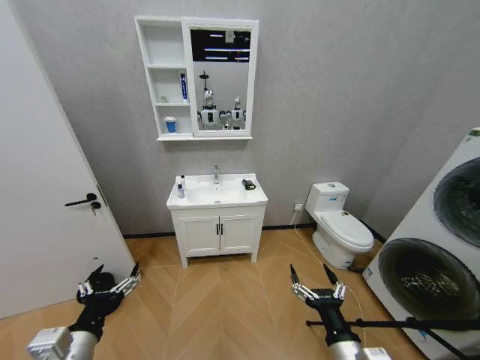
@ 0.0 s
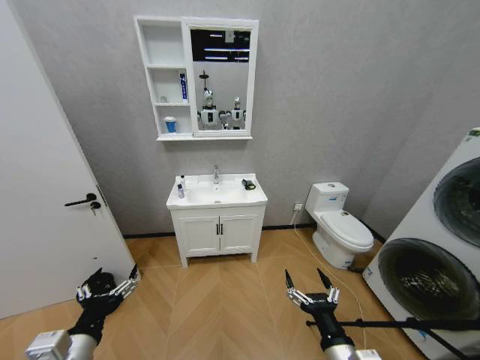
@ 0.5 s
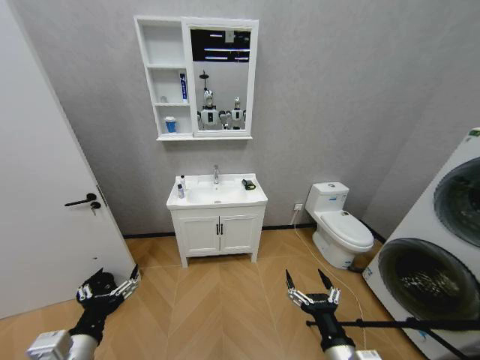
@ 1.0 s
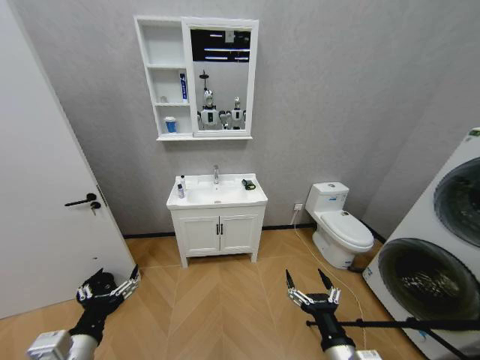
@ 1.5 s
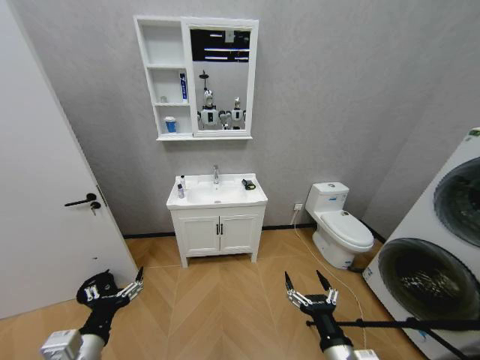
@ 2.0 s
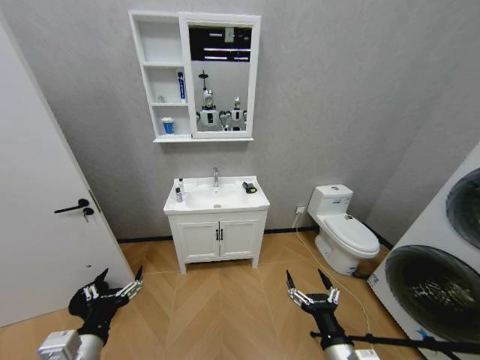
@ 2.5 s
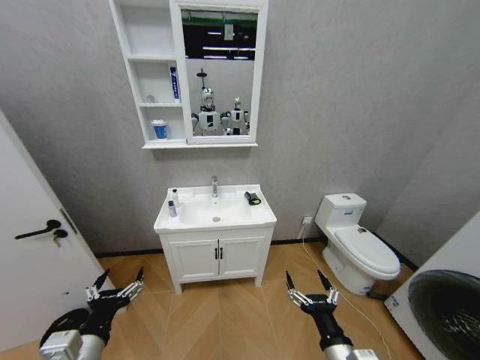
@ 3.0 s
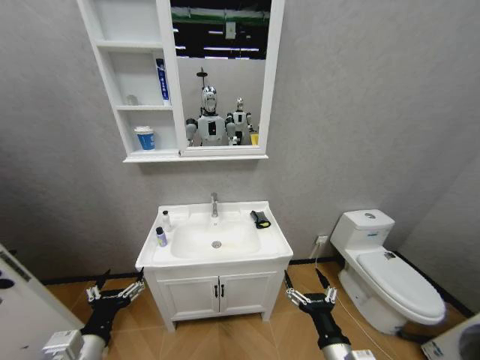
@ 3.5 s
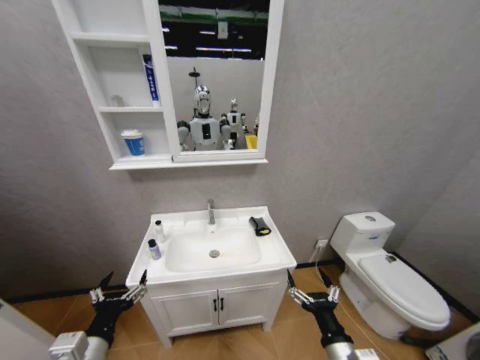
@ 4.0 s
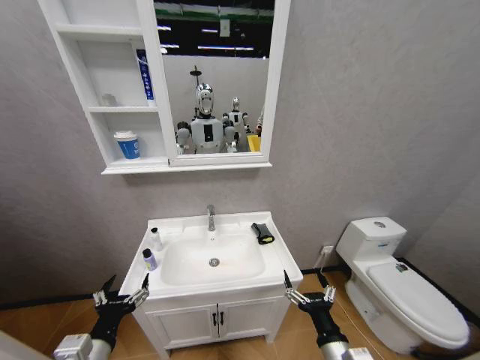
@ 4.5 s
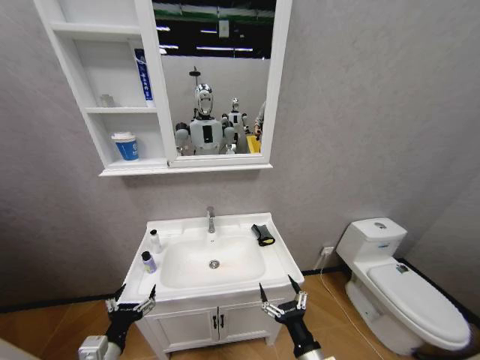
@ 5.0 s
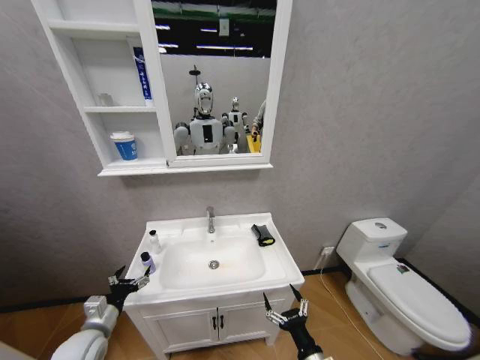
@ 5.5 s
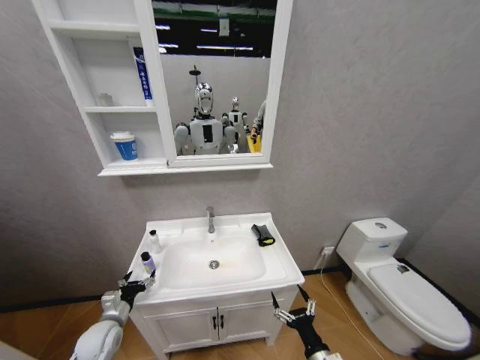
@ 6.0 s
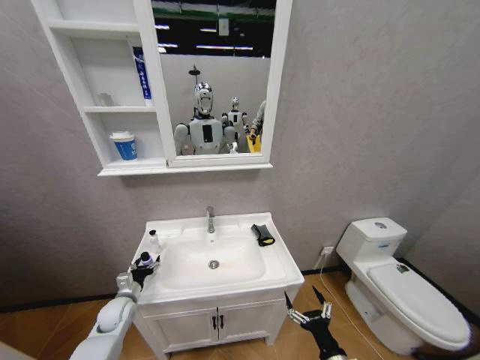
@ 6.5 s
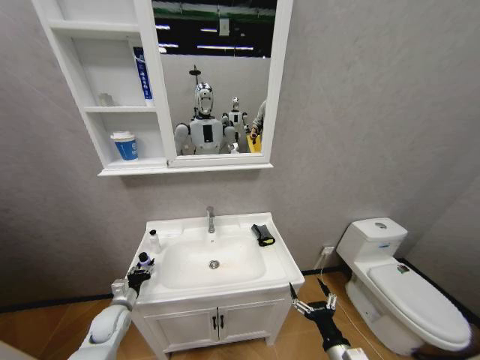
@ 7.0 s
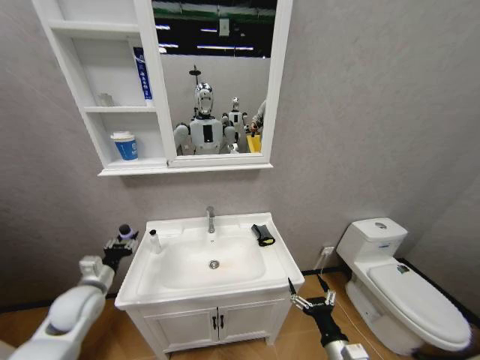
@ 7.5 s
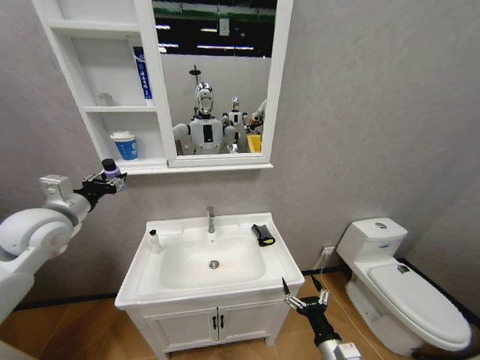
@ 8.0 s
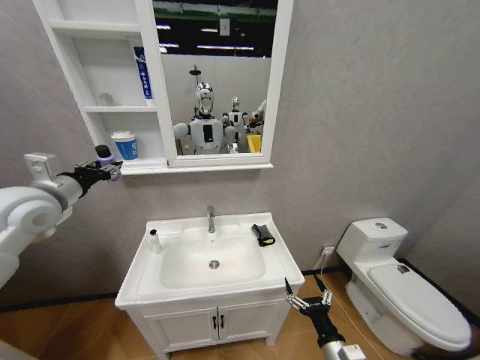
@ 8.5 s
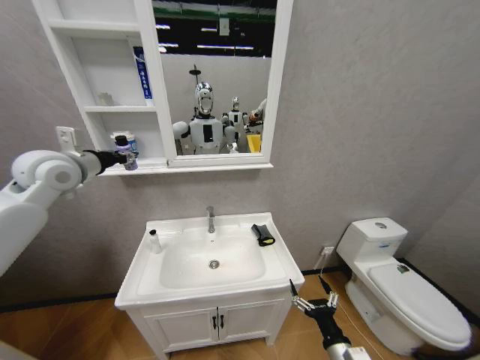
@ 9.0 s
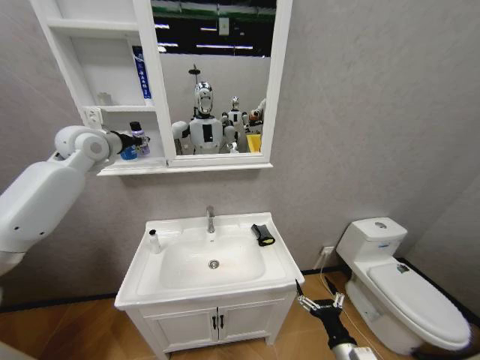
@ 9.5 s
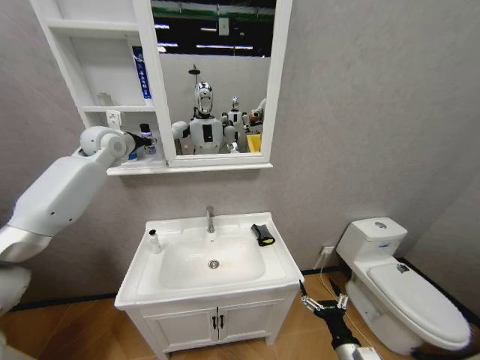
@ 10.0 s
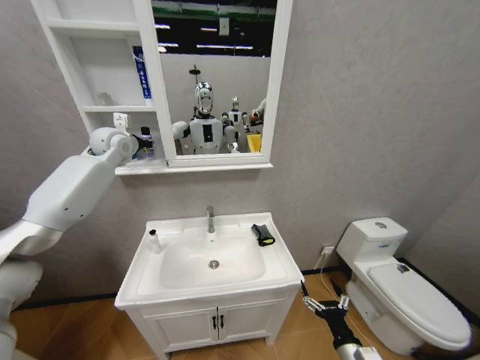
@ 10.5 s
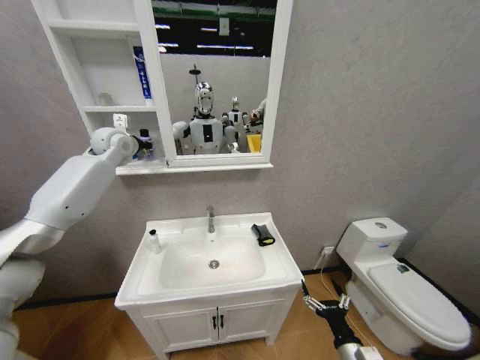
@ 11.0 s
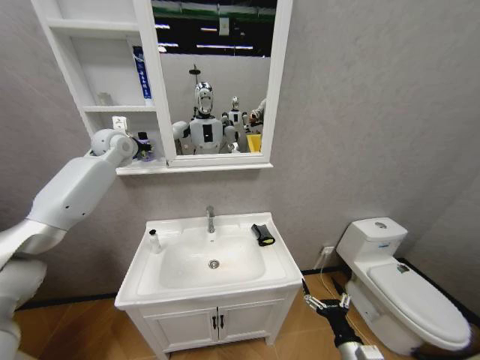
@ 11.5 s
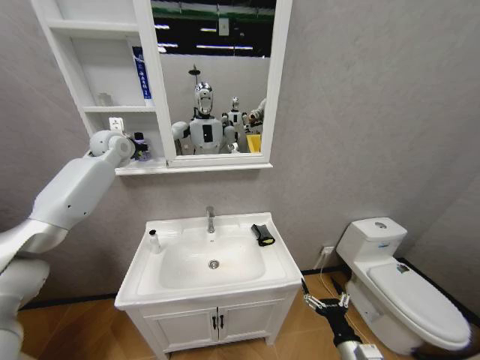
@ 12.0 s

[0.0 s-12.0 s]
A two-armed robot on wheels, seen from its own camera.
Task of the whole recording: Move facial cleanser and shampoo from washbasin to cabinet, then wipe washbasin with towel.
4.0 to 6.0 s: The left gripper shifts roughly 25 cm downward, forward and to the left. Meanwhile the right gripper is displaced downward by about 10 cm.
6.0 to 8.0 s: The left gripper travels upward by roughly 35 cm, and closes.
8.0 to 10.0 s: The left gripper travels forward and upward by about 25 cm.
10.0 to 12.0 s: The grippers move only a little.

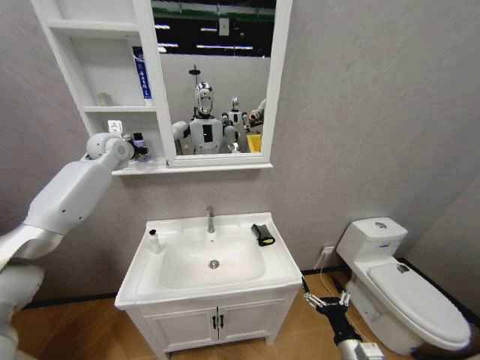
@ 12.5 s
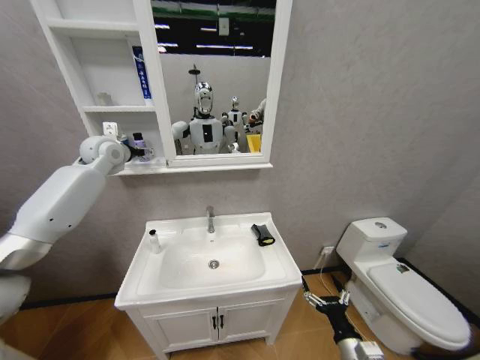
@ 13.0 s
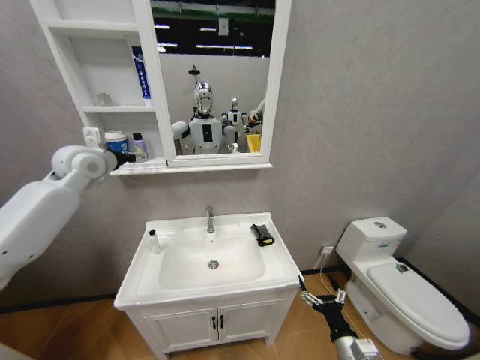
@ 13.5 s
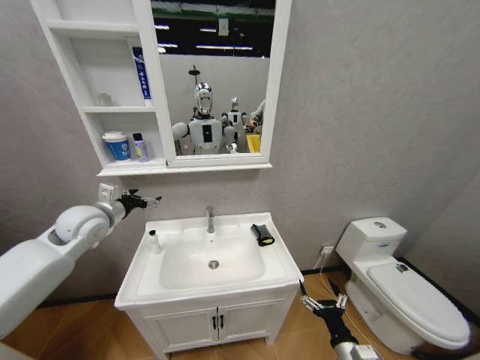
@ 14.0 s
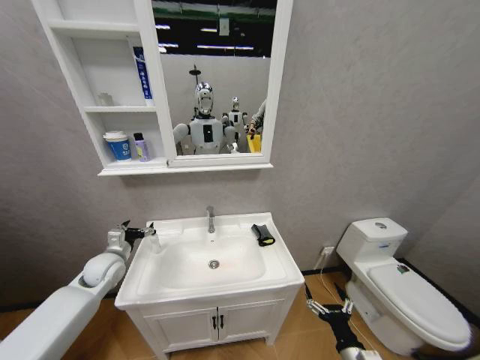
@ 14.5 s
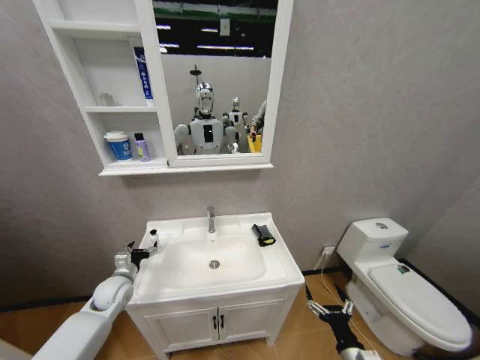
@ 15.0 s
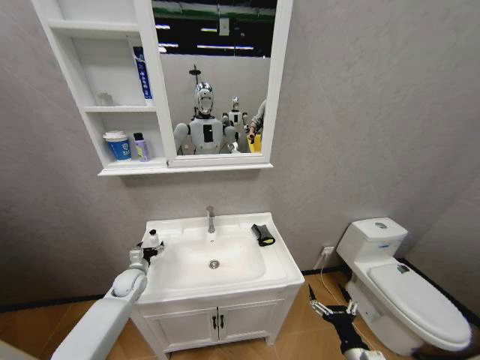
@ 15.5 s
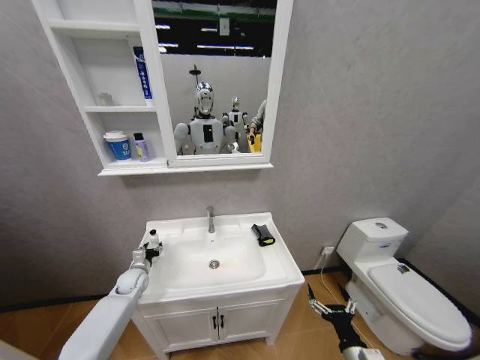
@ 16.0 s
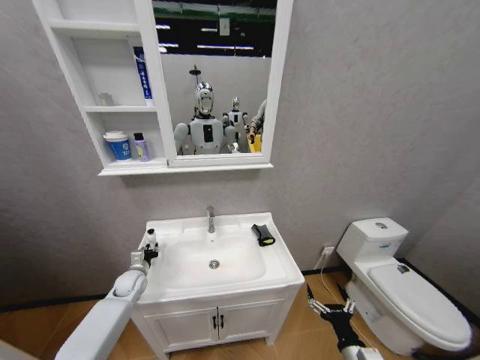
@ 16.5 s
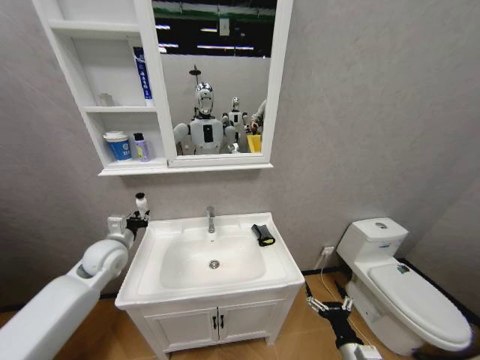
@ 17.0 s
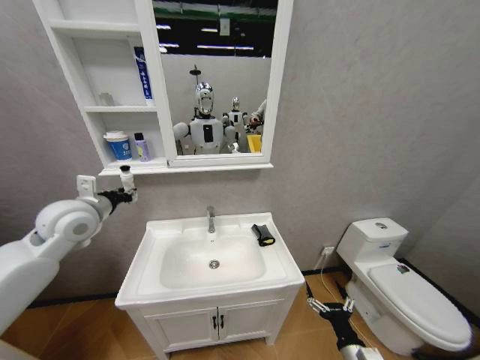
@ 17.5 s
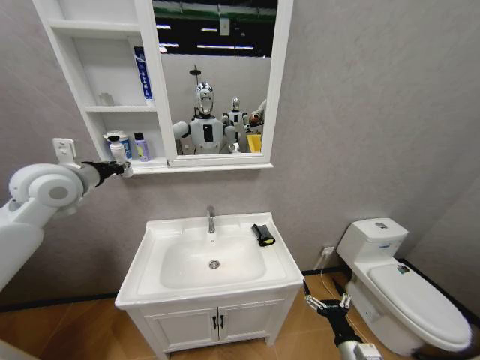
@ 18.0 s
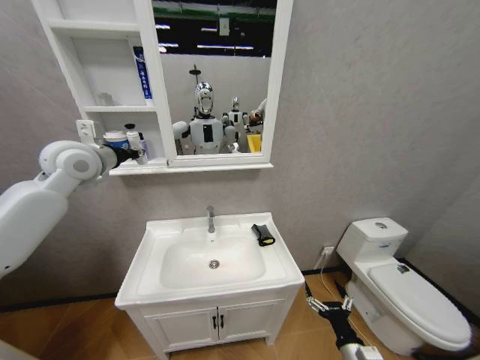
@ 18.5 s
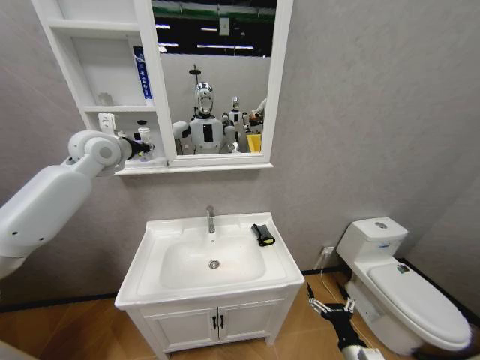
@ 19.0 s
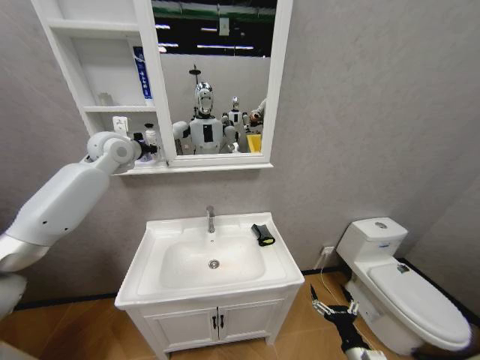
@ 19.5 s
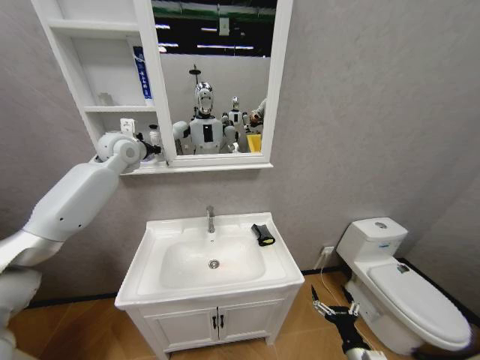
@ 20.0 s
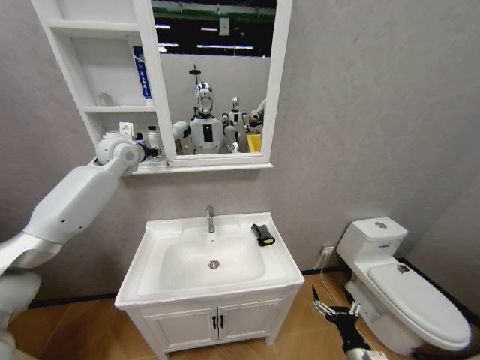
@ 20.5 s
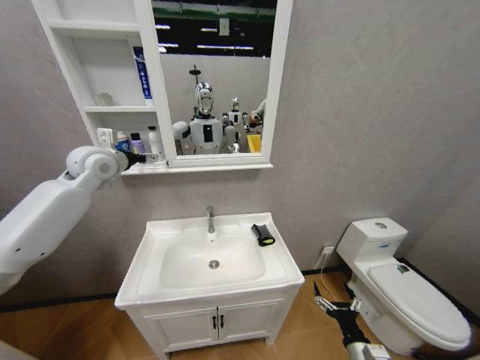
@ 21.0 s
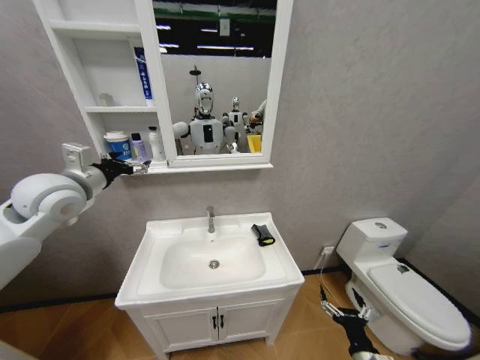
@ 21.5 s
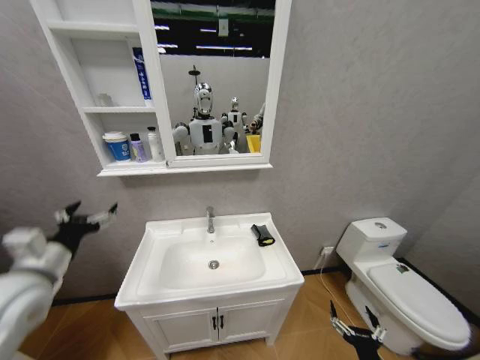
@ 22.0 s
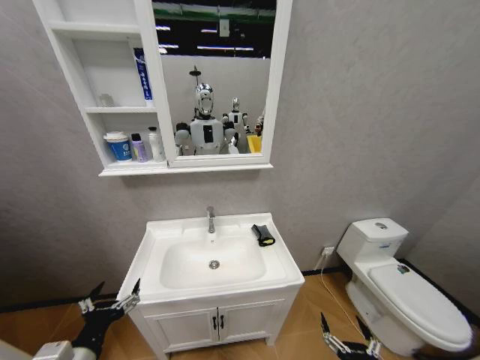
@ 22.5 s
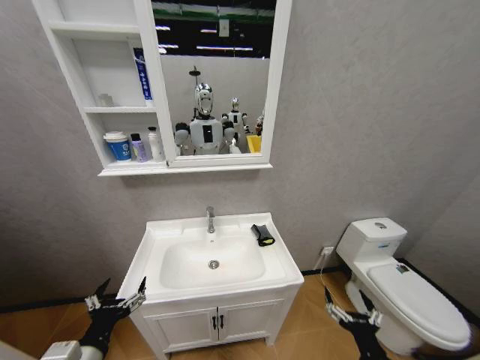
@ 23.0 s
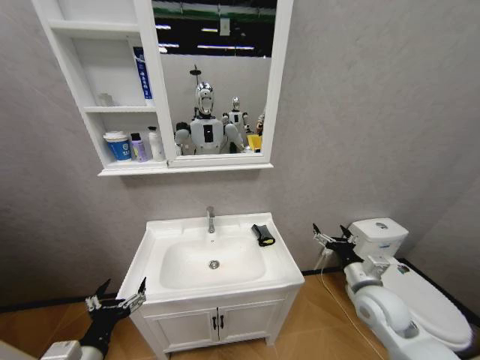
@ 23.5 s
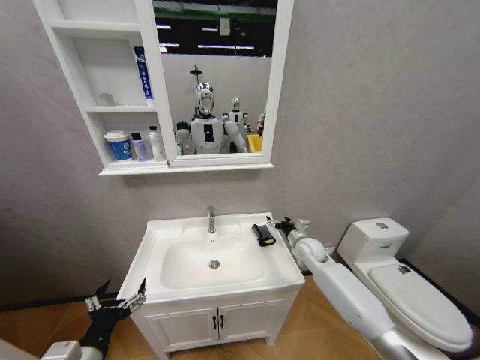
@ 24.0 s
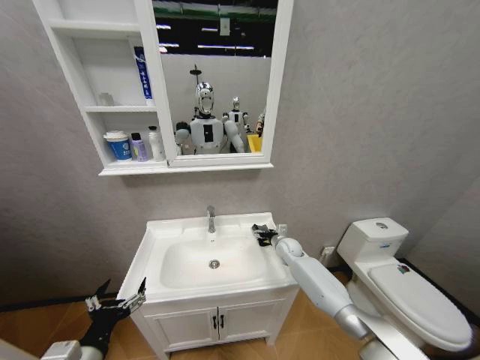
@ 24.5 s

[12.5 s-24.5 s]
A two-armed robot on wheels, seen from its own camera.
Task of the whole recording: Move facial cleanser and shampoo from washbasin to cabinet, then wipe washbasin with towel.
12.5 to 14.5 s: The left gripper heads downward and backward, covering roughly 35 cm, and opens its fingers.
14.5 to 16.5 s: The left gripper shifts roughly 15 cm downward, and closes up.
16.5 to 18.5 s: The left gripper heads upward, covering roughly 40 cm.
18.5 to 20.5 s: The left gripper goes some 10 cm forward.
20.5 to 22.5 s: The right gripper is displaced backward by some 10 cm. The left gripper shifts approximately 50 cm backward and downward, and opens its fingers.
22.5 to 24.5 s: The right gripper heads forward, covering roughly 50 cm.

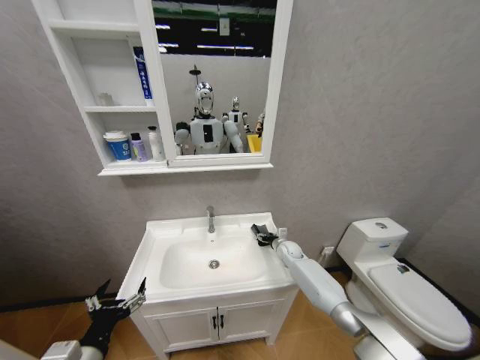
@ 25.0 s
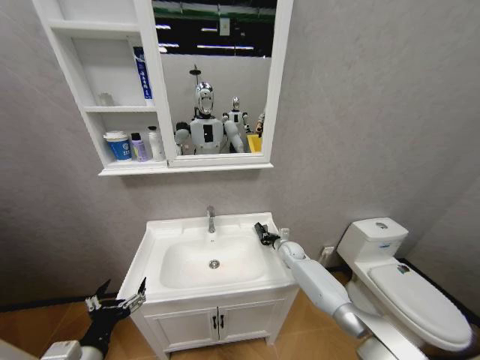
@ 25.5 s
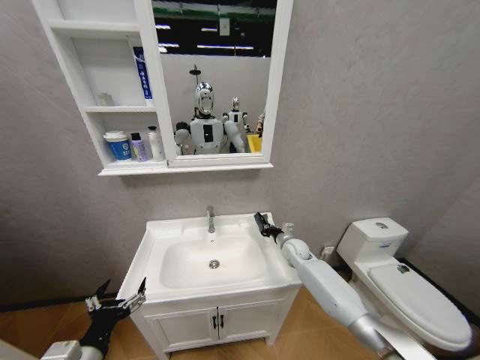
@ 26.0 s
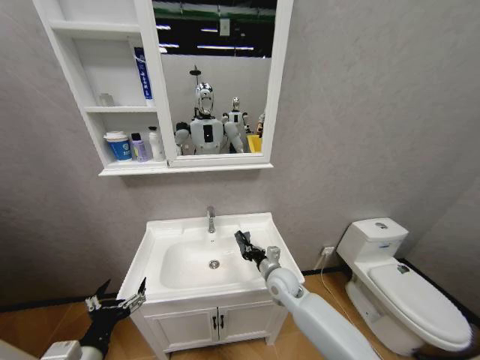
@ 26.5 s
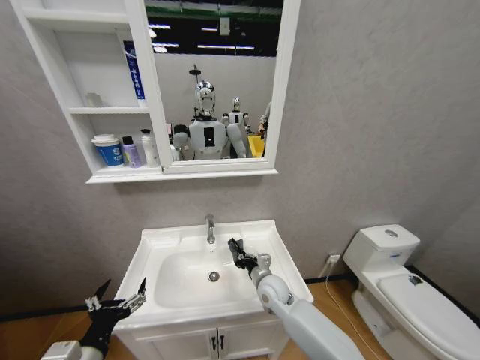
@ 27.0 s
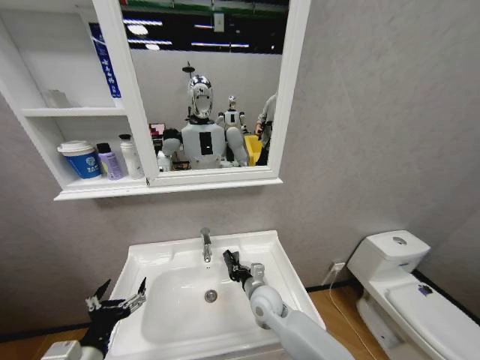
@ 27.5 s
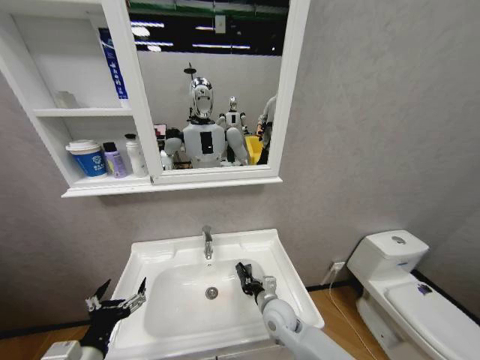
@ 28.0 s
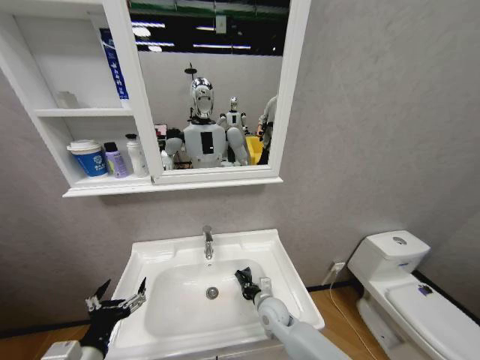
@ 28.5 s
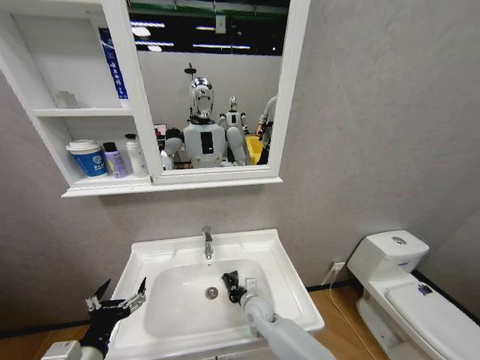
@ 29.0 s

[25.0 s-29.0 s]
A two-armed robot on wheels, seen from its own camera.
Task of the whole recording: Move facial cleanser and shampoo from washbasin to cabinet, then wipe washbasin with towel.
25.0 to 27.0 s: The right gripper moves backward and to the left, roughly 20 cm, and closes.
27.0 to 29.0 s: The right gripper goes about 10 cm downward.
